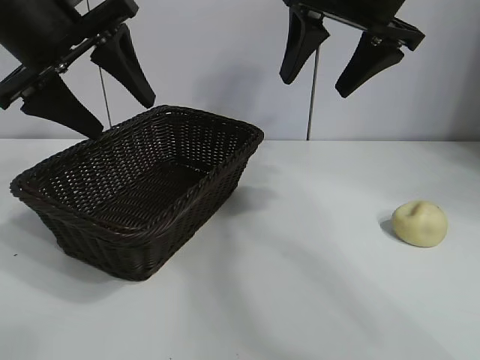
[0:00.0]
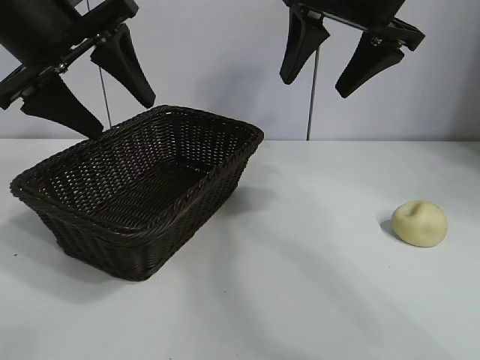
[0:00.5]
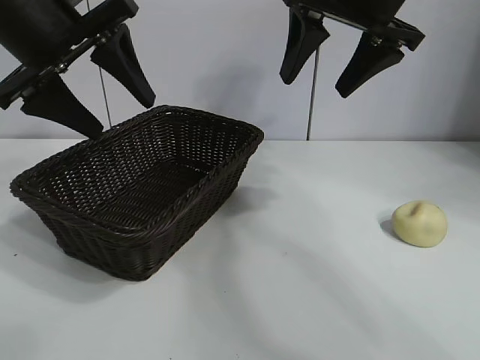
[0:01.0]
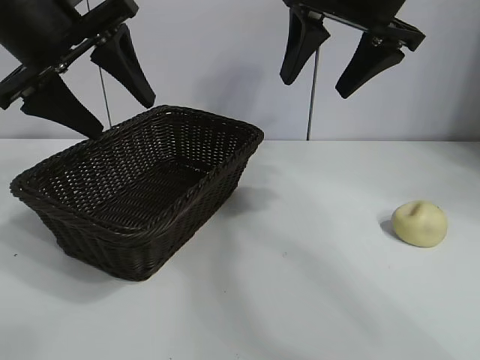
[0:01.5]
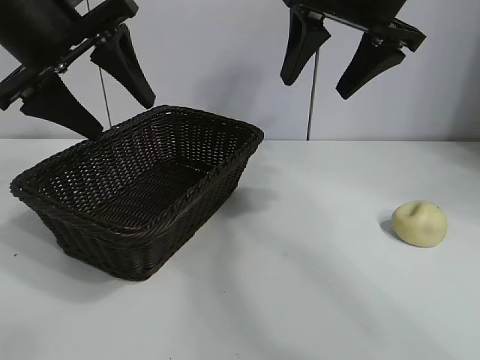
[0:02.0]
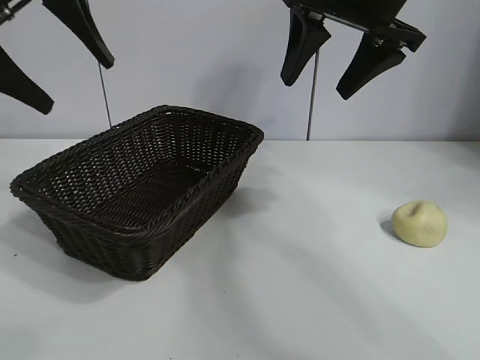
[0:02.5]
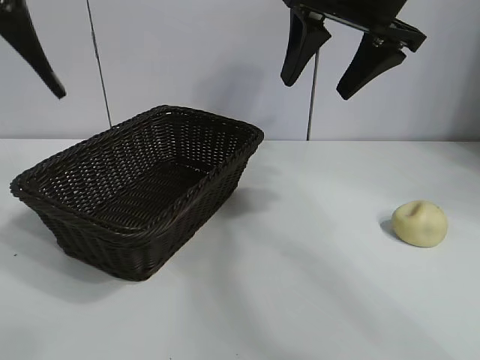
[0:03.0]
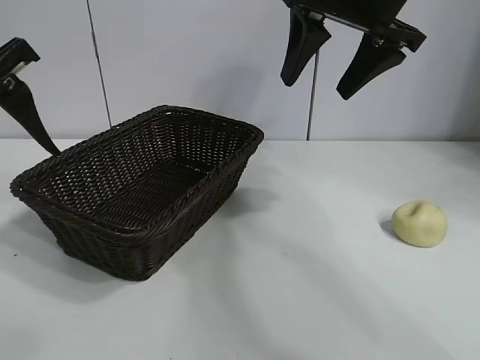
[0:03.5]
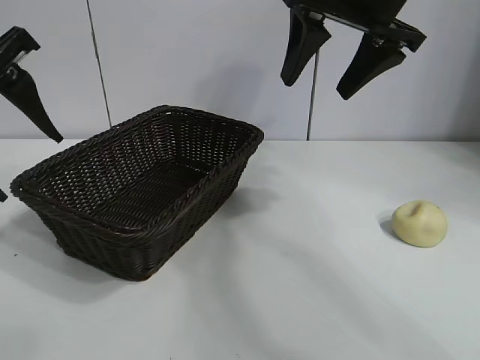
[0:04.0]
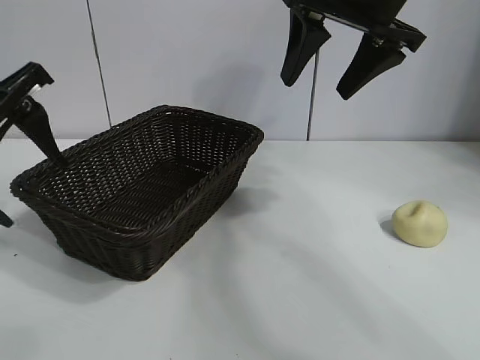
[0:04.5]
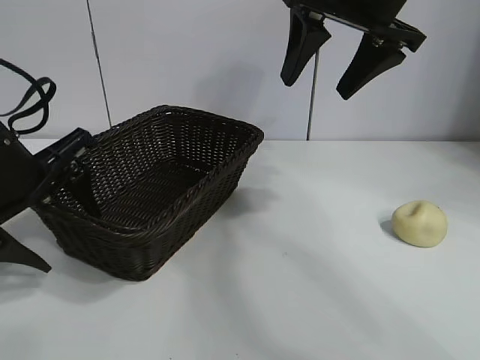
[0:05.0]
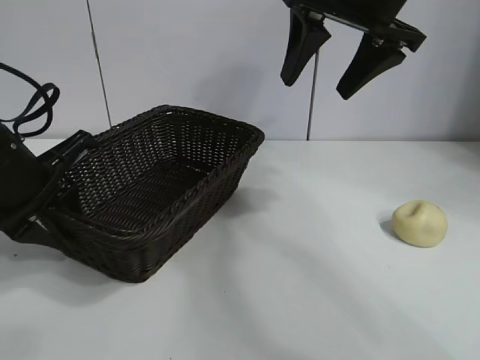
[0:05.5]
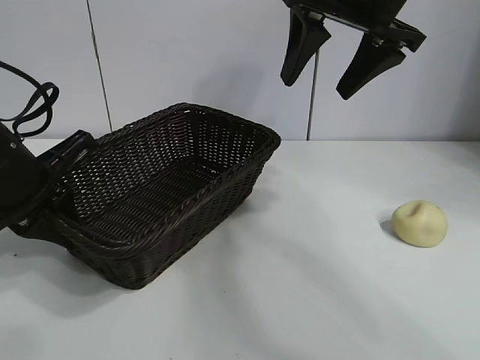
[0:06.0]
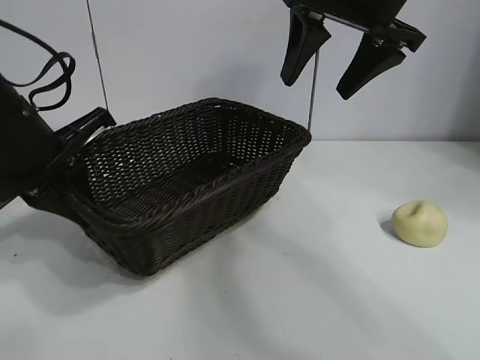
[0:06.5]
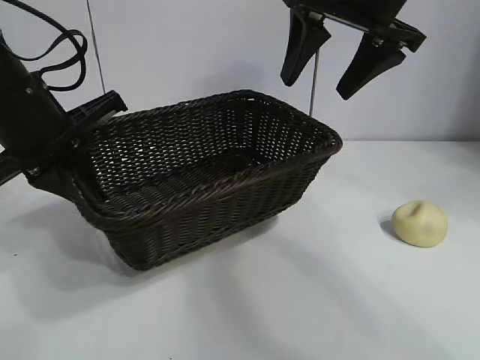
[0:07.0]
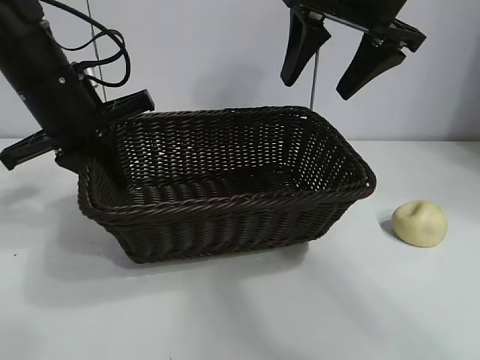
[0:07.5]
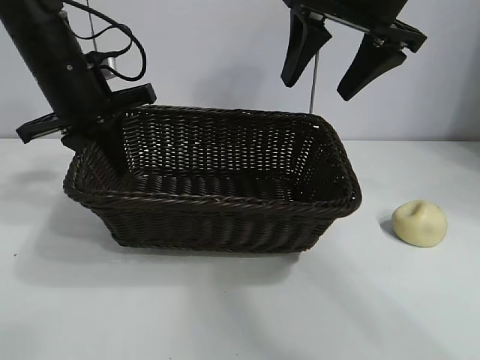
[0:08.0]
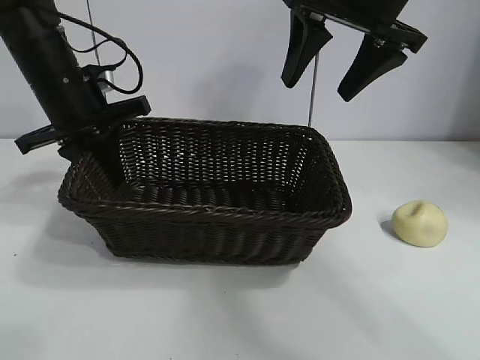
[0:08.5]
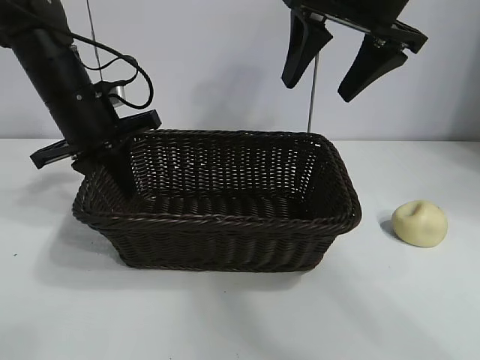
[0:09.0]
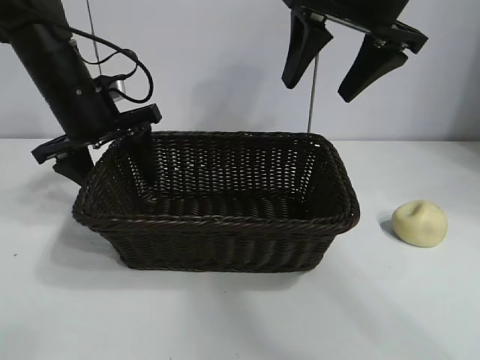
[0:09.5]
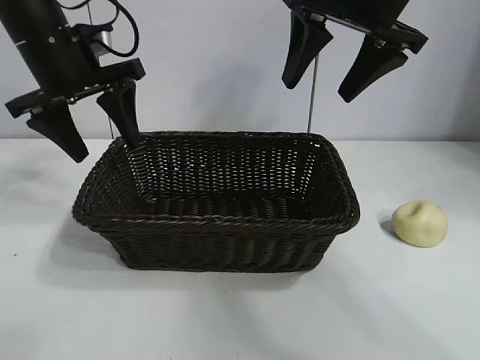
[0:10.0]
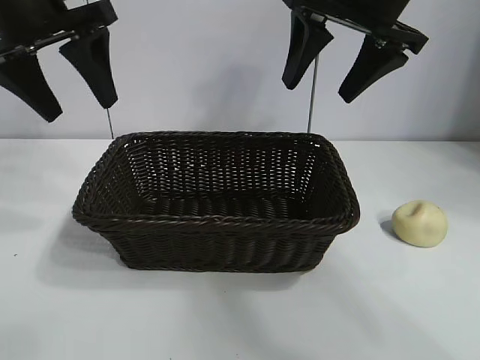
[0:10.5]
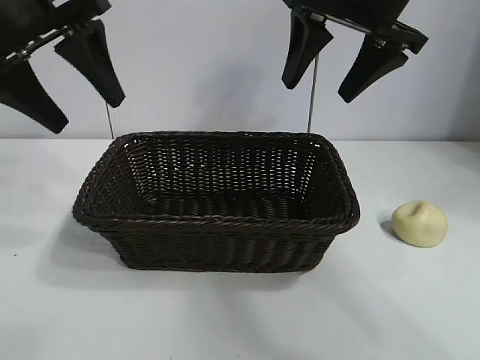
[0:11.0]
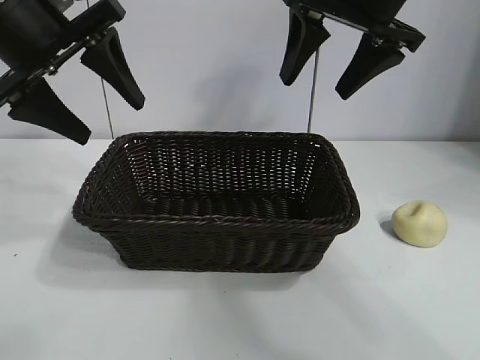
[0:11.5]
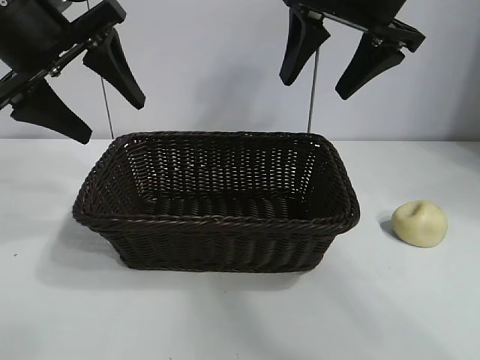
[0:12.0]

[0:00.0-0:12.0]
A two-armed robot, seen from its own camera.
Task of the whole recording: pick up the egg yolk pastry and put it into the basket.
Step, 0:02.0 to 0:06.0: Grasp the basket with left gripper.
Step, 0:06.5 to 0:09.0: Place the basket in the center of view with left gripper.

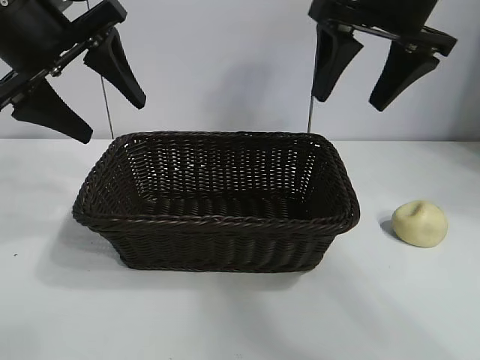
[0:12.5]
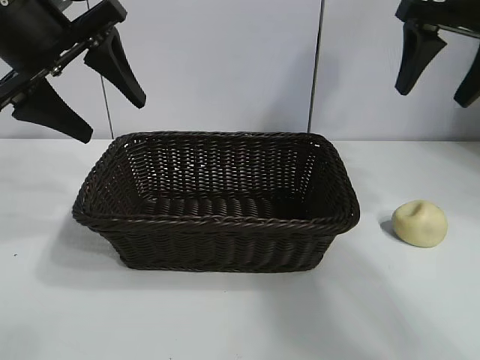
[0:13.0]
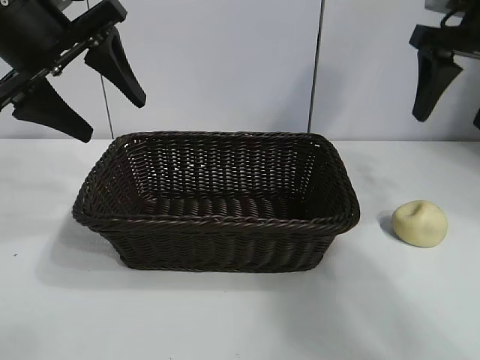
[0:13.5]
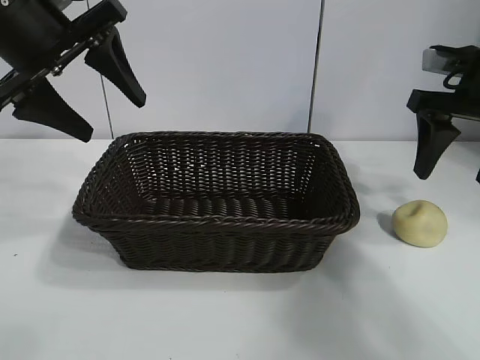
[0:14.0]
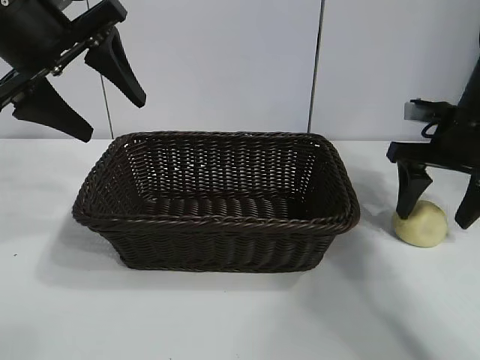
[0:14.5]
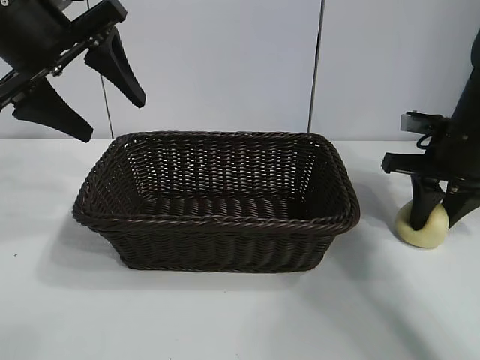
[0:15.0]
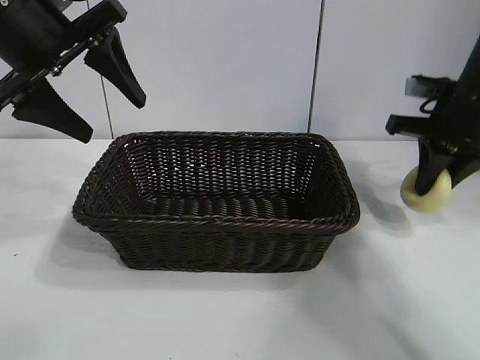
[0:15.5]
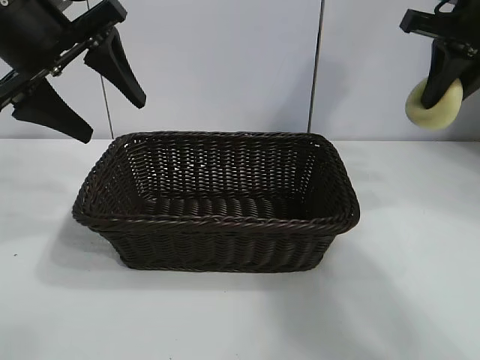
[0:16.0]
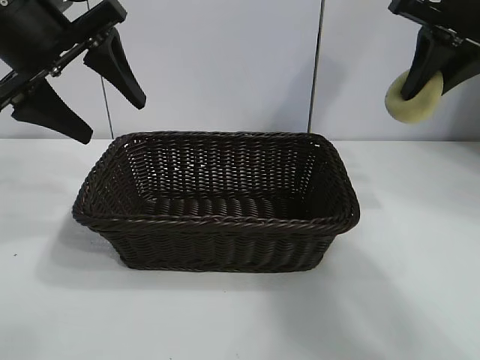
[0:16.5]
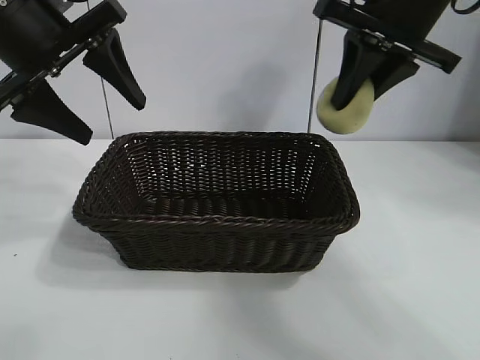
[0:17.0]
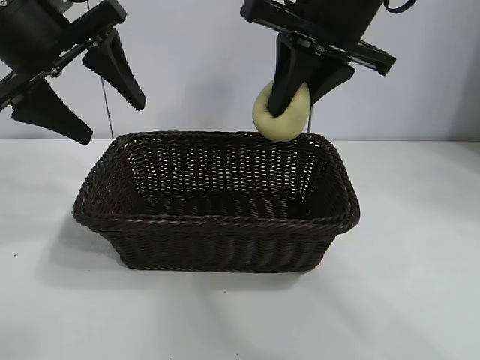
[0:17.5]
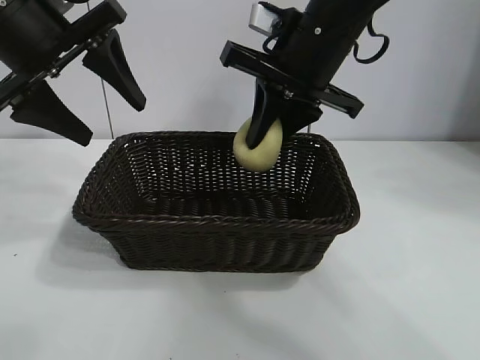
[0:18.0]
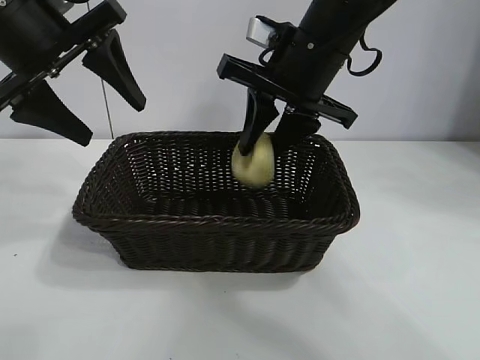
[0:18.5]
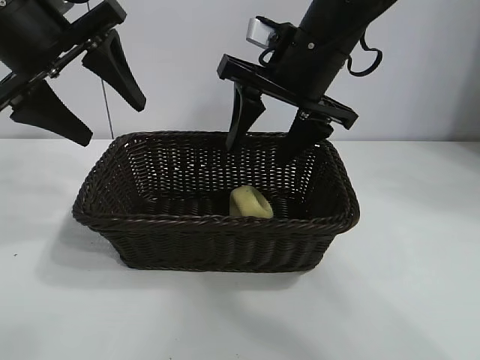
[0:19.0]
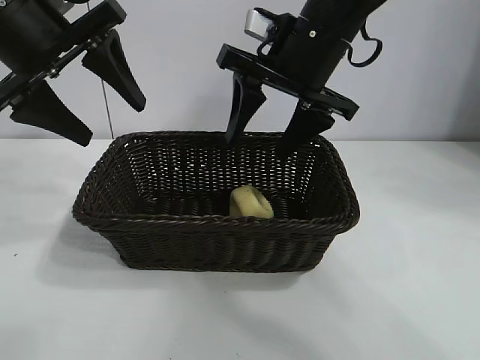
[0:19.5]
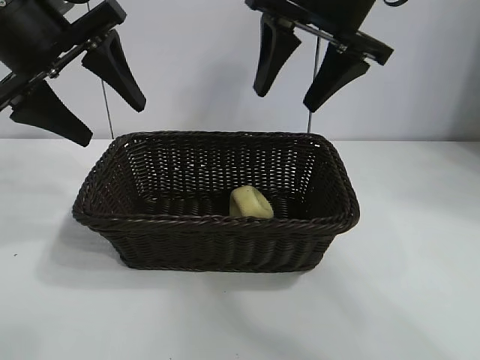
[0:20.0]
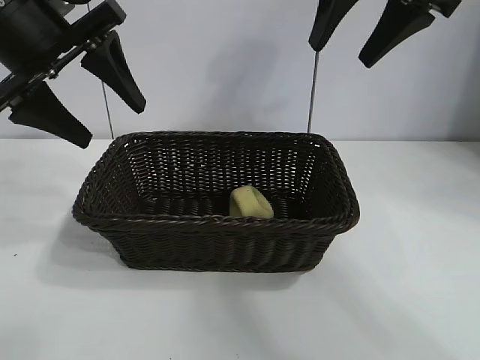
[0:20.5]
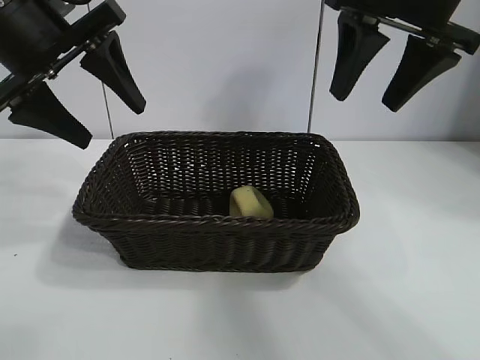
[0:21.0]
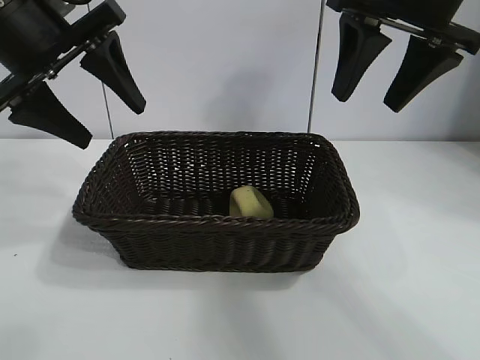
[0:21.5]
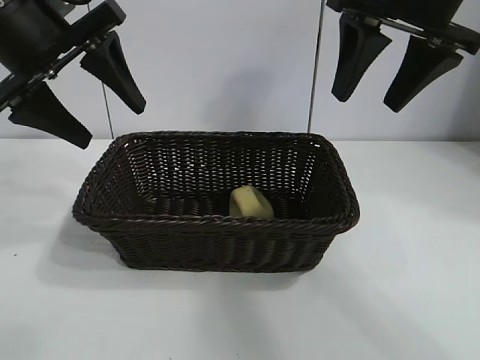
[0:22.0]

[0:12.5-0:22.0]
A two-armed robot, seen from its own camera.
Task of the whole recording: pick up the egg yolk pastry and put it into the basket.
Step, 0:12.5 to 0:15.0: Grasp egg yolk pastry with right gripper.
Step, 0:15.5 to 0:18.5: Place the egg yolk pastry in the basket with right gripper.

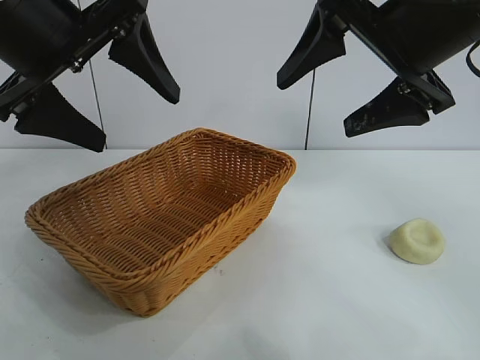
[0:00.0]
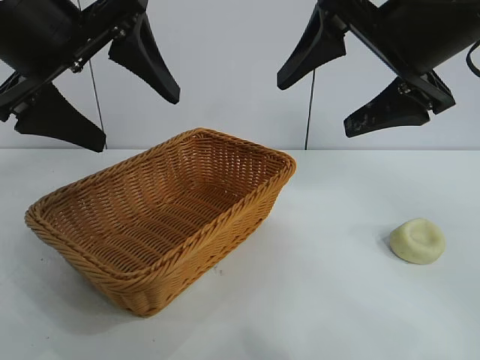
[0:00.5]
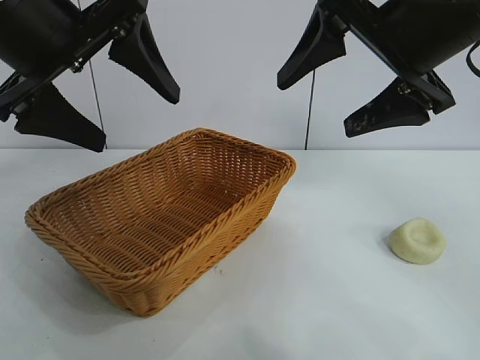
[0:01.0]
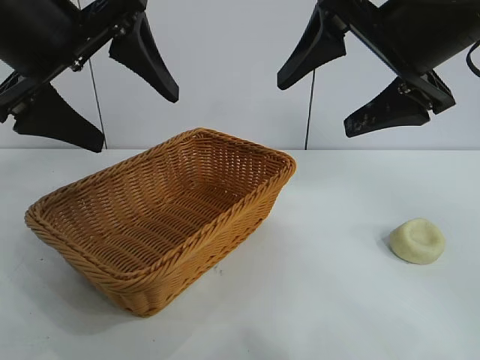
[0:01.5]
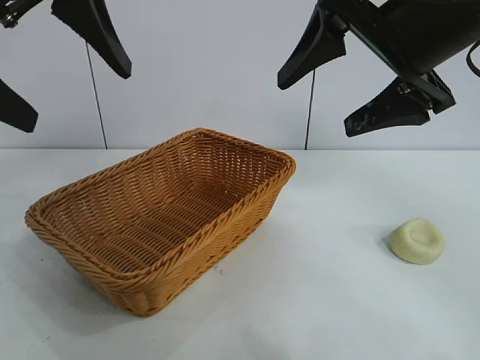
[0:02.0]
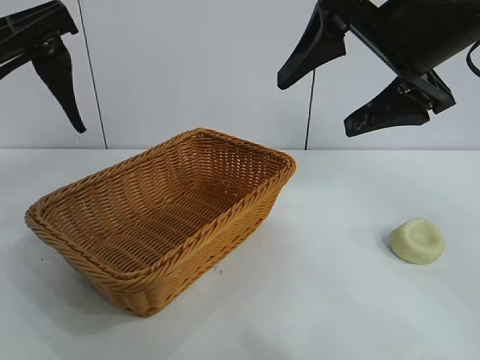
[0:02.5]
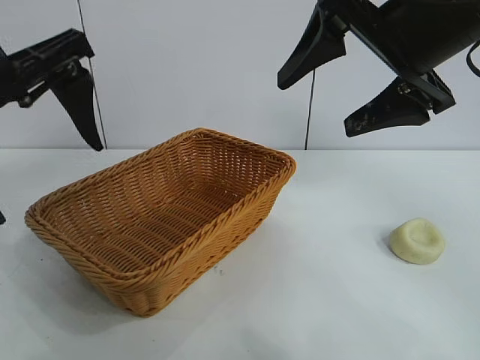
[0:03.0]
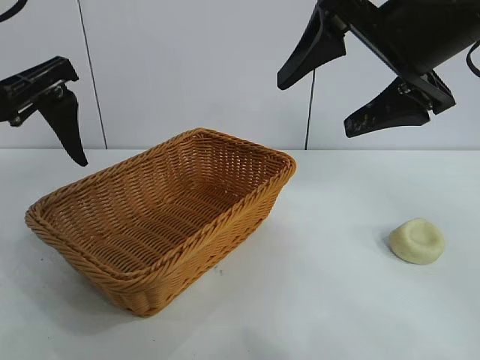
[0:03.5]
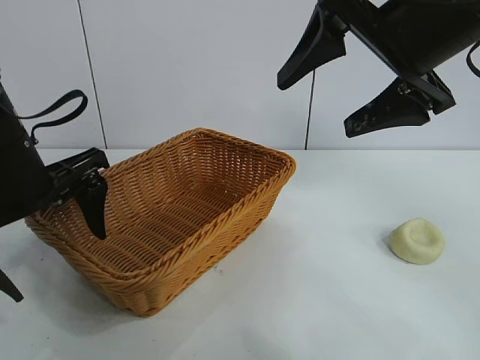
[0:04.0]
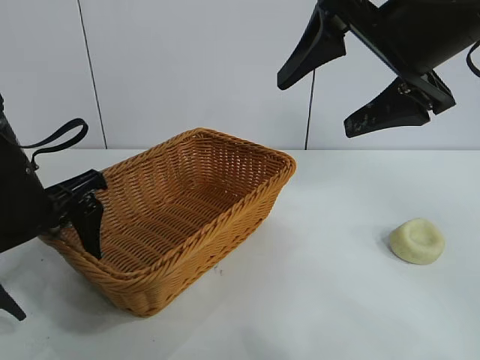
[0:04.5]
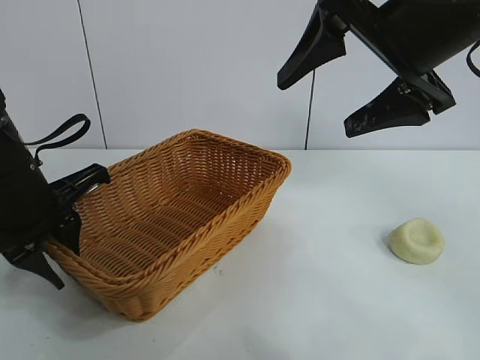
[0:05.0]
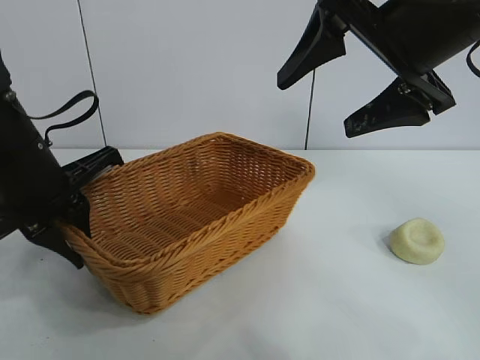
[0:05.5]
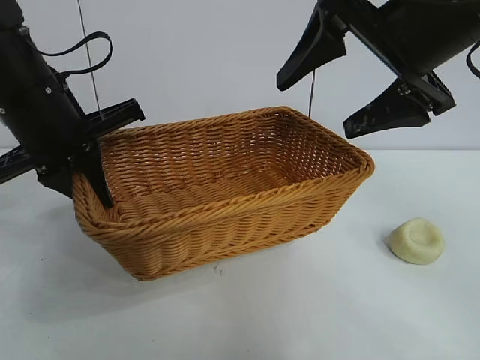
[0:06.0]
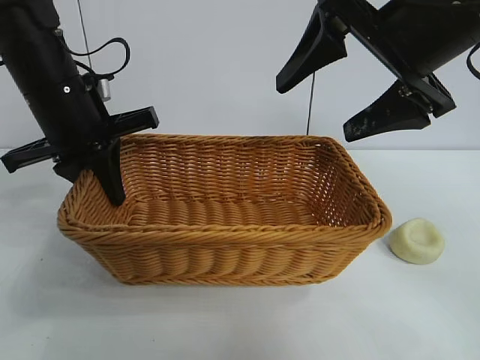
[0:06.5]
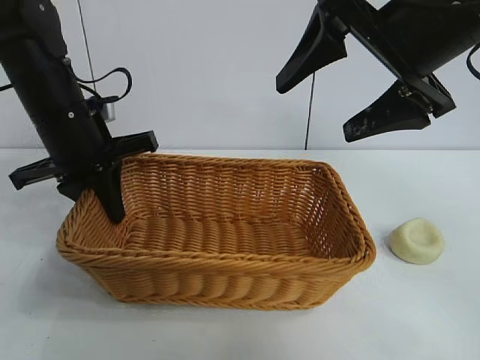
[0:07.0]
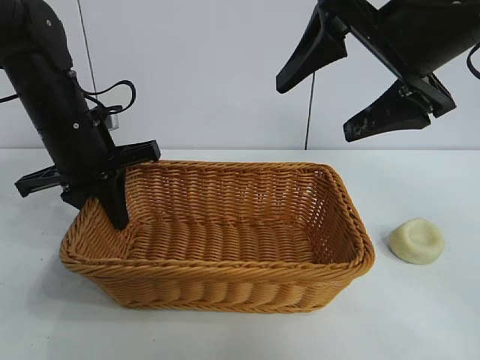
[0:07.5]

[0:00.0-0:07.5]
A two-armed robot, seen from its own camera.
Task of the whole recording: pick up the egg yolk pastry and put it into the basket.
Step, 0:01.5 to 0:05.0: Grasp the basket with left gripper.
